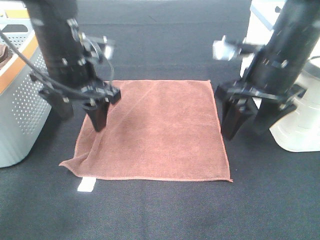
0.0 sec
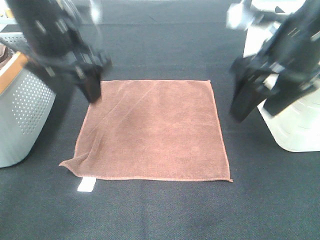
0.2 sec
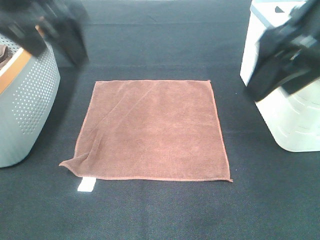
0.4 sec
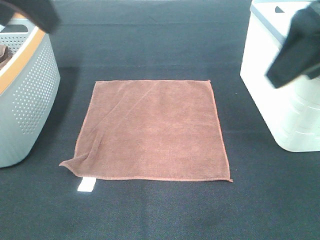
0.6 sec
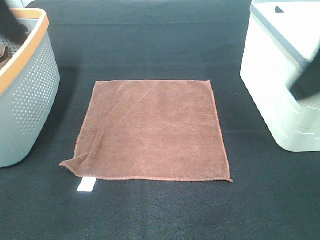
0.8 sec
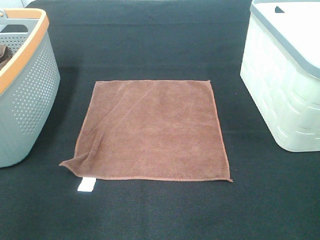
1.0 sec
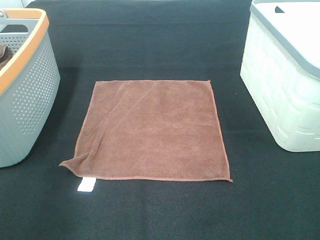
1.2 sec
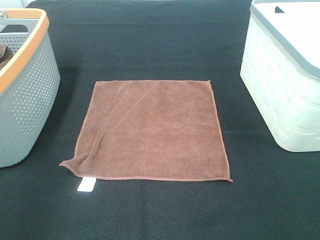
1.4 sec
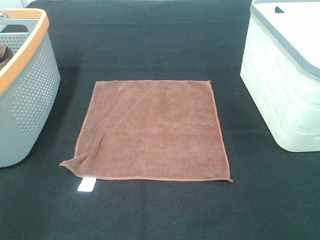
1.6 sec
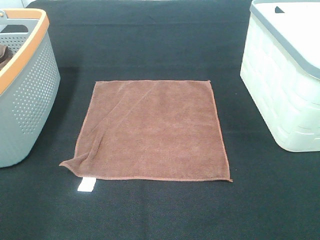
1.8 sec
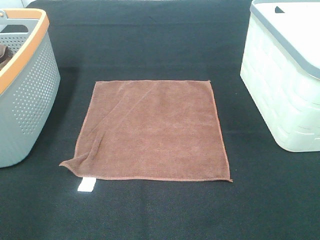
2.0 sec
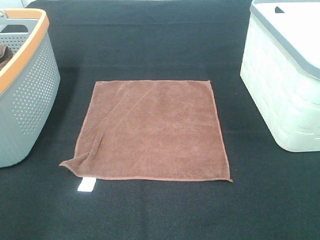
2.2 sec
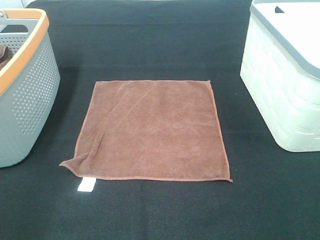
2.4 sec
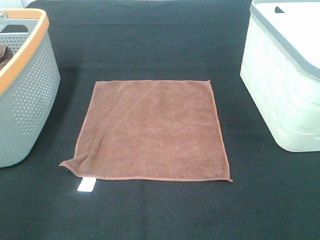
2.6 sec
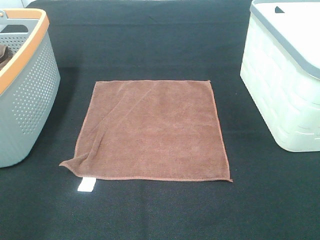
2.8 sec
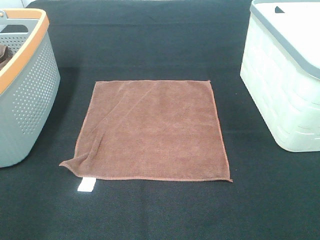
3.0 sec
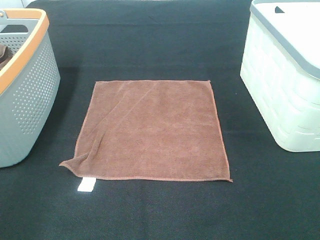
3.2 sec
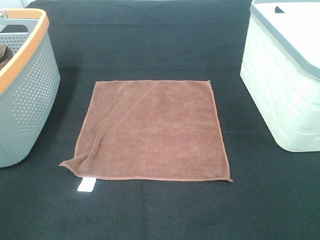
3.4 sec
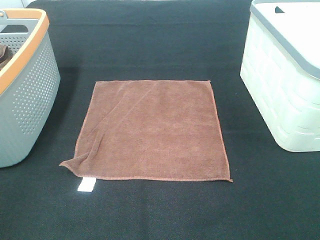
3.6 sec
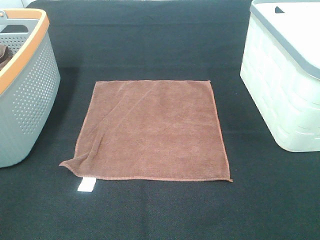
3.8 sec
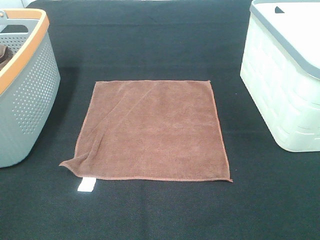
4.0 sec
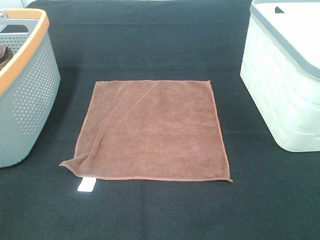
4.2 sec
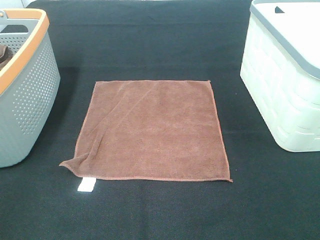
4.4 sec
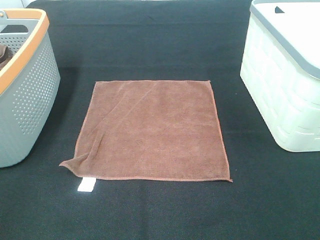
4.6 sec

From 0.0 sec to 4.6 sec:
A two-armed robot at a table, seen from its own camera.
Task of the whole recording: Remove the towel and place it.
From 0.0 sec to 1.6 sec: The left gripper heads backward and to the left, covering some 30 cm. The right gripper heads backward and to the right, covering some 30 cm.

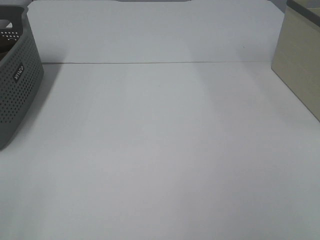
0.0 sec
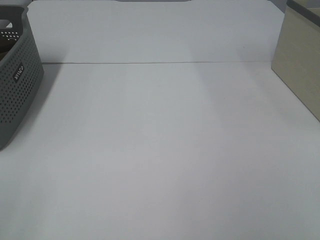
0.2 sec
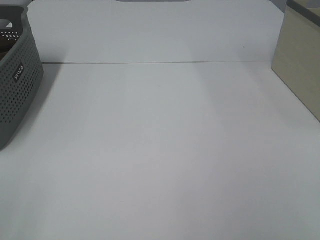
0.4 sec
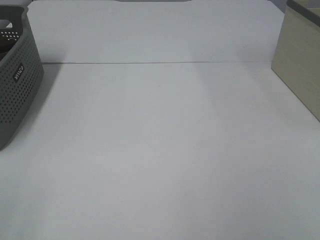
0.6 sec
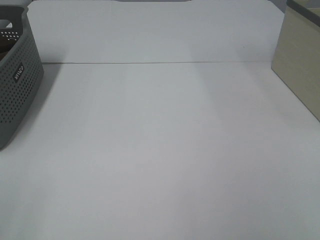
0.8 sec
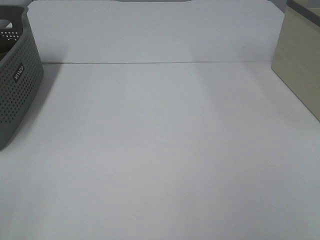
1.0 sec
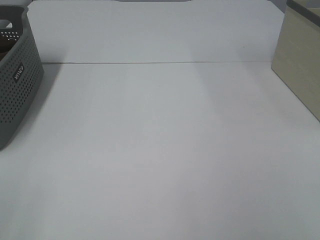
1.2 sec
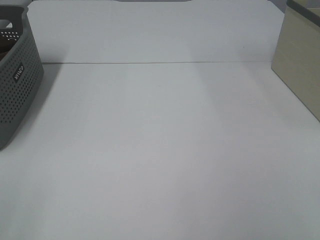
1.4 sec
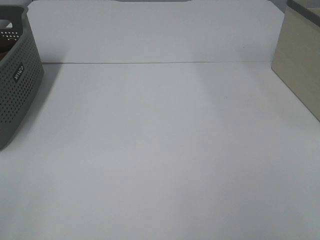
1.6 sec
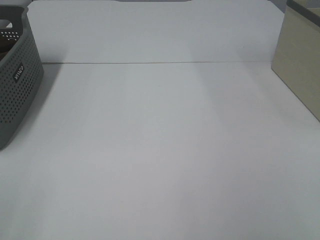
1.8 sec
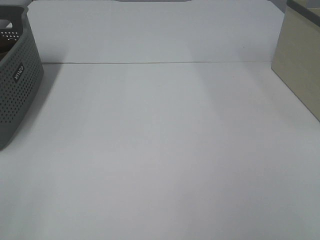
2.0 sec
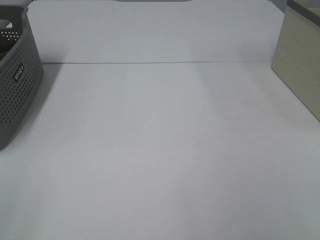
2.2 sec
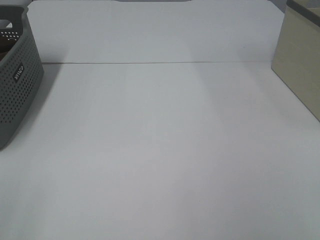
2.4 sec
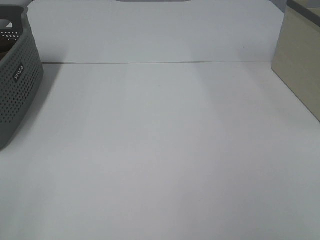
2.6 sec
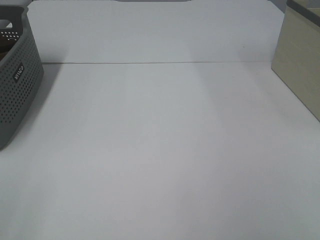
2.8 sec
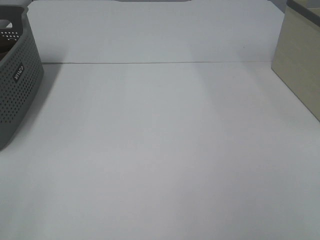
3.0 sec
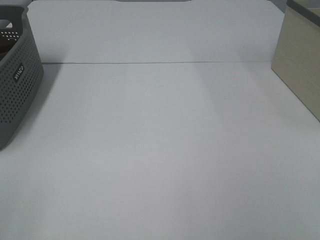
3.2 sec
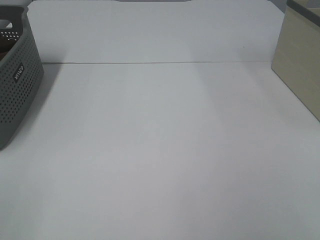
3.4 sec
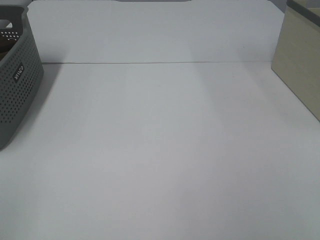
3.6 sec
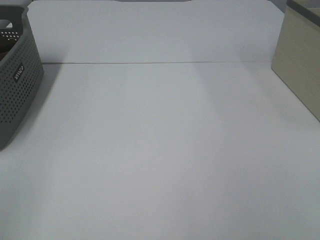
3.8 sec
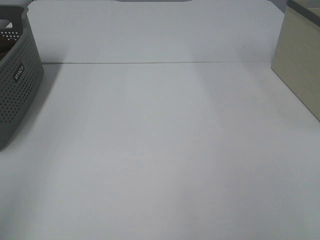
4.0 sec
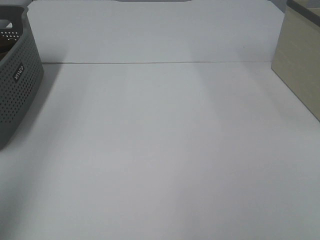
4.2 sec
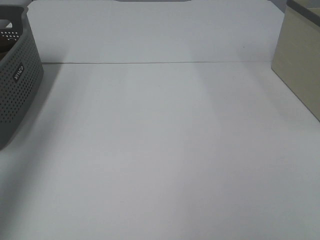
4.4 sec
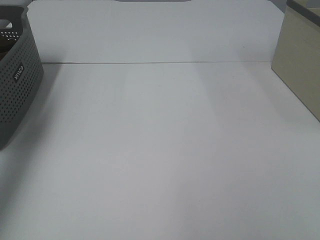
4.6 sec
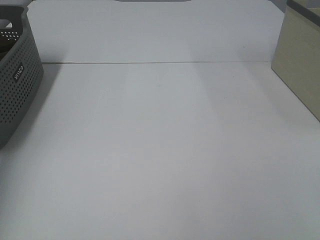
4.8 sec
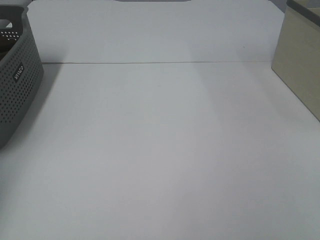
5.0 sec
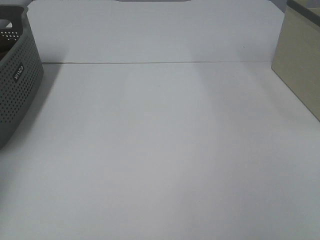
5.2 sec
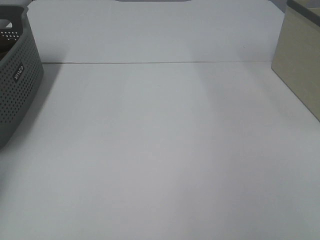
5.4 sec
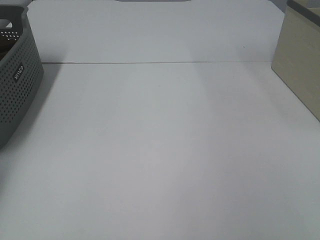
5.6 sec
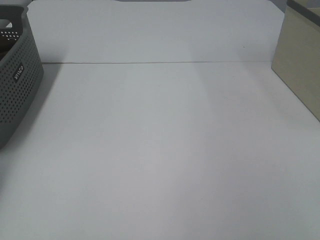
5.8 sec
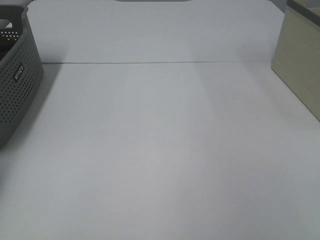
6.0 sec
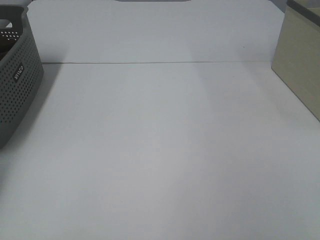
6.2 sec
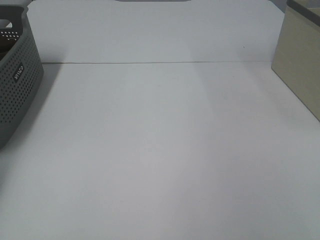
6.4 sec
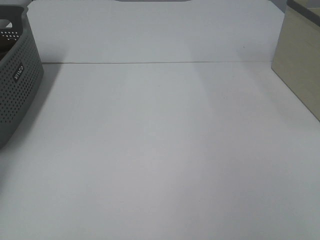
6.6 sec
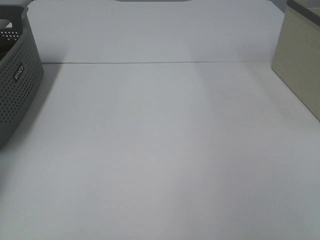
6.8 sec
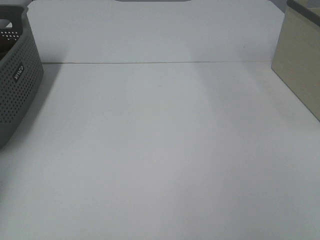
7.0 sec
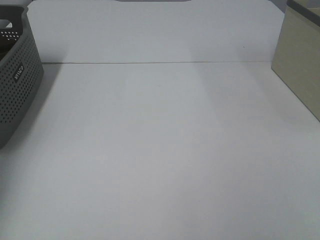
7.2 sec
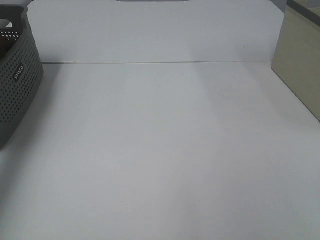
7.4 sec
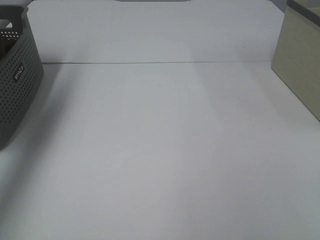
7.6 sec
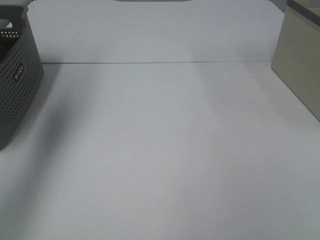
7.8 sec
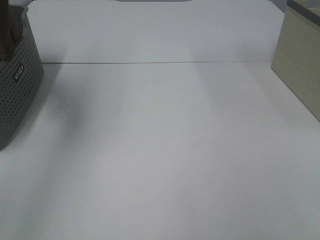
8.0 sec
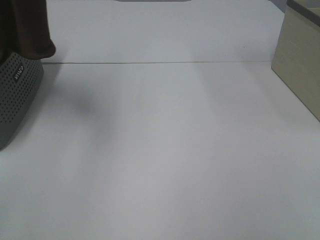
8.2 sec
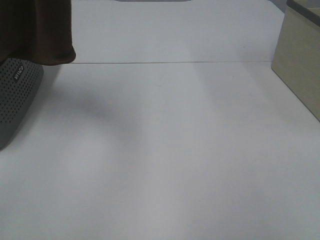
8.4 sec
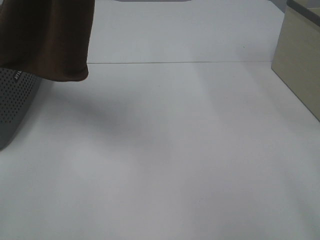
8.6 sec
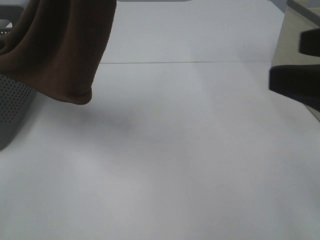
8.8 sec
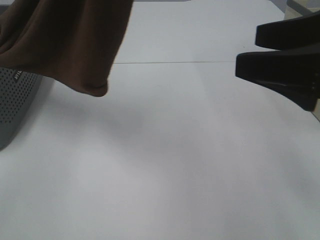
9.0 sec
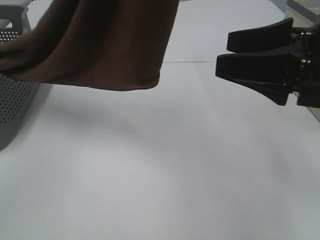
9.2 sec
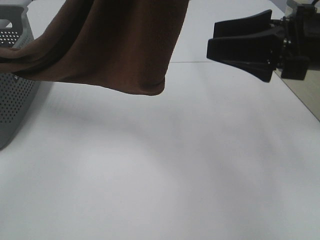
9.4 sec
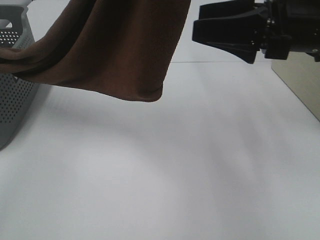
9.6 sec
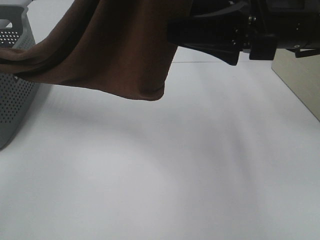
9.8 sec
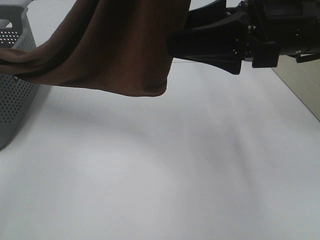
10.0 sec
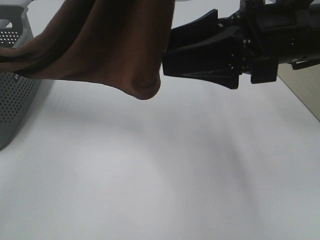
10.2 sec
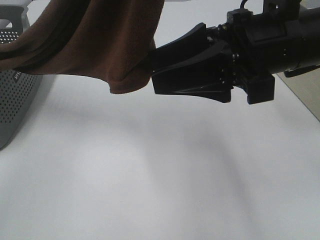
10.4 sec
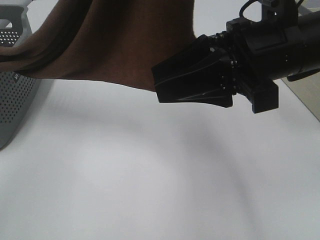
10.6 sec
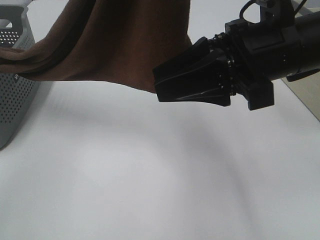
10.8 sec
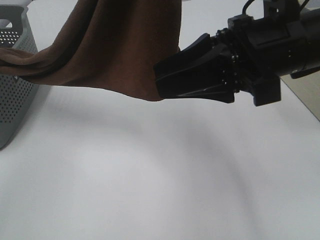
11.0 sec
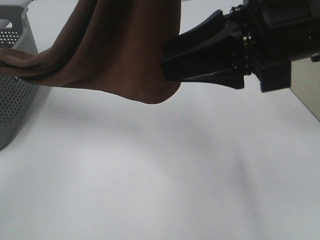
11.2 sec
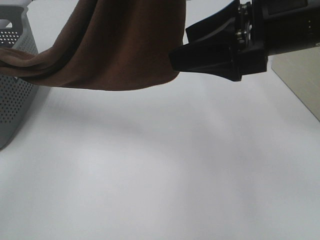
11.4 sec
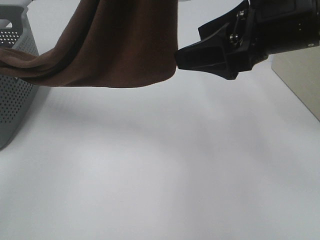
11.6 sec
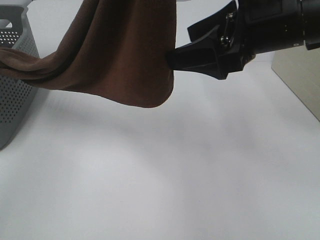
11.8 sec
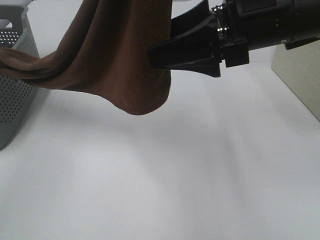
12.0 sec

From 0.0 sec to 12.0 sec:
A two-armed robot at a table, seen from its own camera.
Task of the whole recording: Remove the towel and place it.
From 0.0 sec to 3.0 sec: Neither gripper changes place.
From 3.0 sec to 4.4 sec: The left gripper goes approximately 30 cm forward and upward.
From 4.4 sec to 6.0 sec: The left gripper shifts about 30 cm downward, forward and to the left.
From 6.0 sec to 7.6 sec: The left gripper shifts roughly 25 cm upward and to the right, and closes its fingers.
From 7.6 sec to 9.0 sec: The left gripper moves to the right and backward, approximately 30 cm, while the right gripper shifts some 20 cm forward and to the left.
From 9.0 sec to 10.4 sec: The right gripper moves to the left and forward, roughly 10 cm.

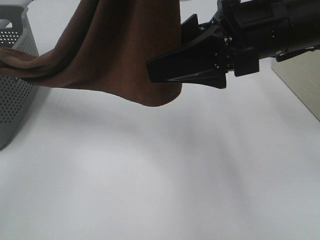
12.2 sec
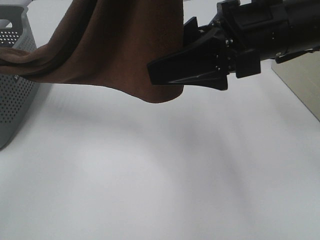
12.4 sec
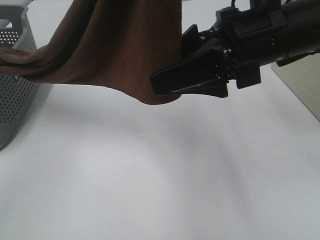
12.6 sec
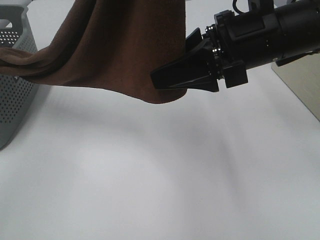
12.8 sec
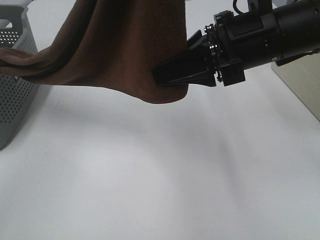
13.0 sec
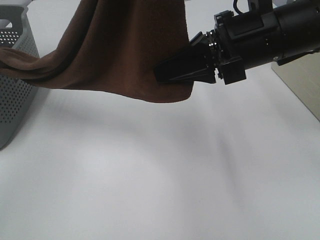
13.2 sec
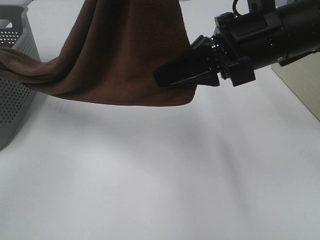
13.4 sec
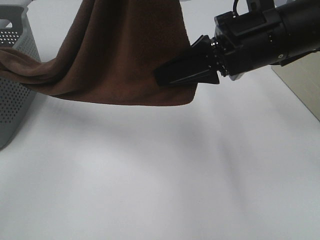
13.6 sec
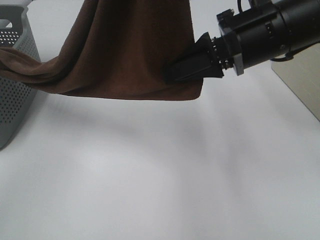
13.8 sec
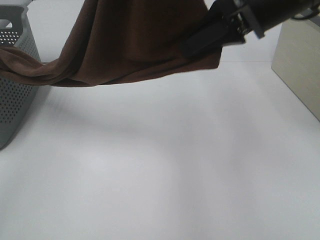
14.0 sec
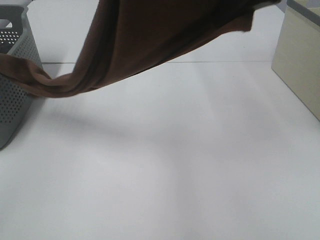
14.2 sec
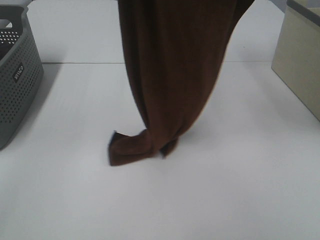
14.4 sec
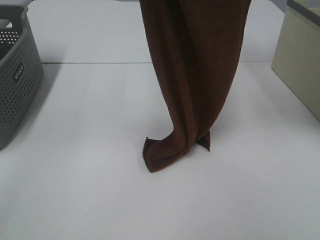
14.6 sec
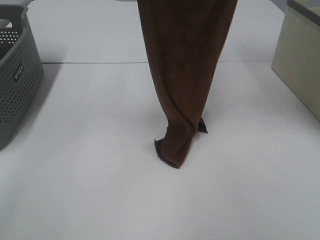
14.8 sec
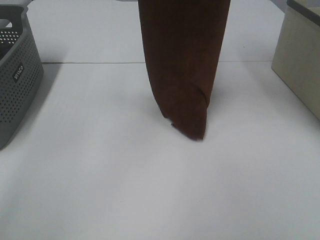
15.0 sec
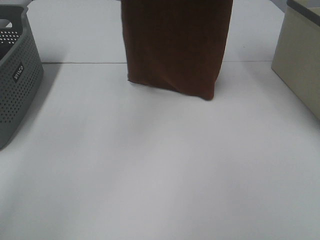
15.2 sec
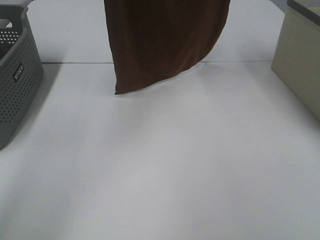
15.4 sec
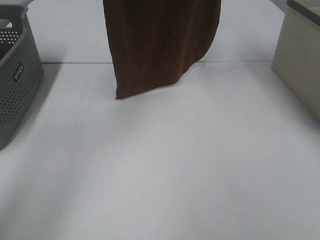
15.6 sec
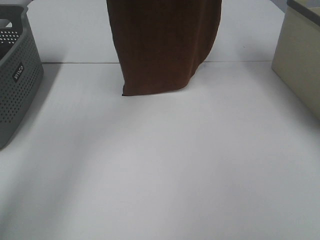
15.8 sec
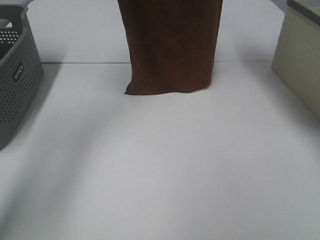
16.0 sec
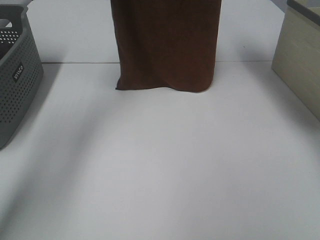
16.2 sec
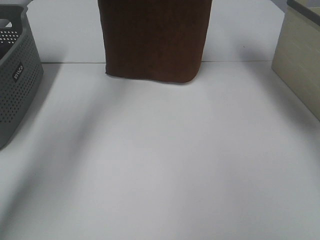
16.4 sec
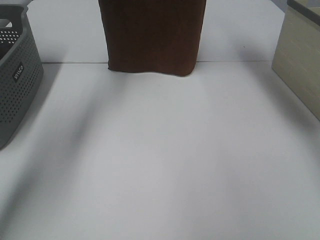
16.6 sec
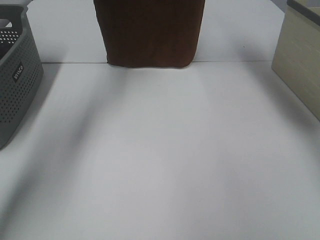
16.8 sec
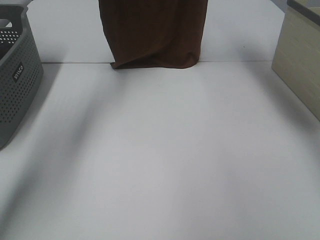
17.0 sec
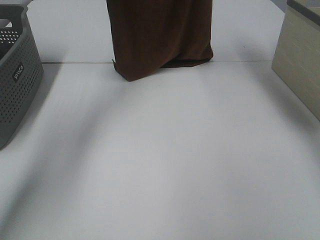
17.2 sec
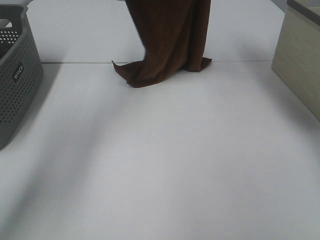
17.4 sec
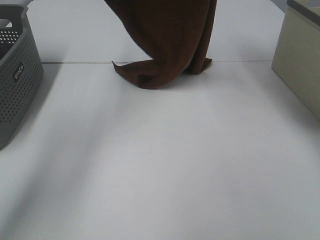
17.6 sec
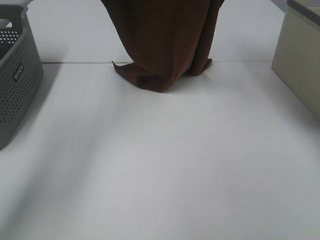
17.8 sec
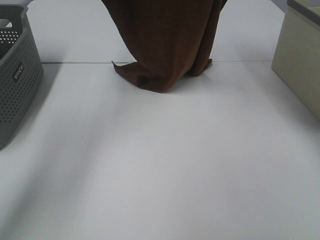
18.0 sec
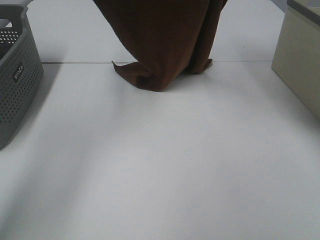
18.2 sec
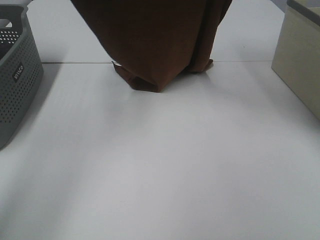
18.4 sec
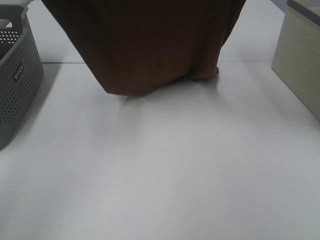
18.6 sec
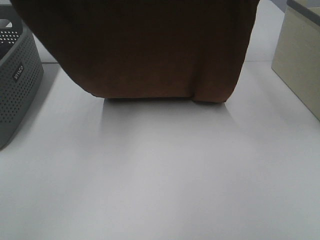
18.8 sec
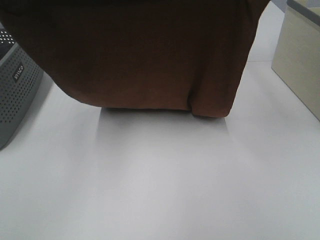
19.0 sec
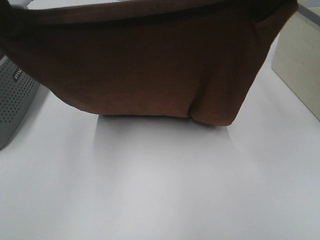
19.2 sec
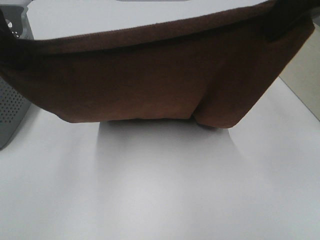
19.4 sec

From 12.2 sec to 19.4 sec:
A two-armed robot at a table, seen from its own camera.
Task of the whole recording: Remove the towel and place it.
Step, from 13.4 sec to 18.6 sec: Left hand: spread the brown towel flat on the table.
Step, from 13.4 sec to 18.6 sec: Right hand: spread the brown towel flat on the table.
From 12.2 sec to 13.6 sec: The right gripper closes.
From 13.6 sec to 15.0 sec: The left gripper moves forward, approximately 15 cm; the right gripper is displaced upward and forward by roughly 25 cm.
From 15.0 sec to 16.6 sec: The left gripper shifts approximately 15 cm forward and to the left, while the right gripper goes roughly 10 cm forward.
From 16.6 sec to 18.0 sec: The right gripper goes roughly 5 cm backward; the left gripper travels downward by approximately 5 cm.
From 18.0 sec to 19.4 sec: The two grippers go some 20 cm backward.
